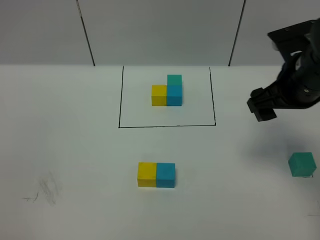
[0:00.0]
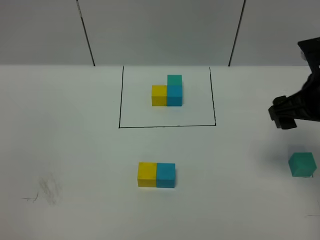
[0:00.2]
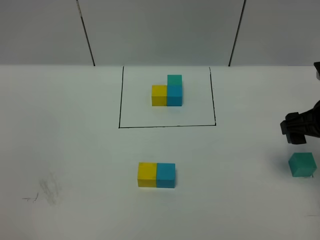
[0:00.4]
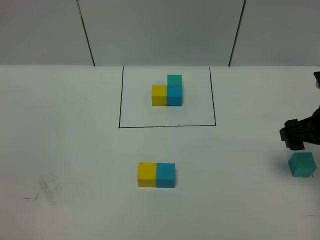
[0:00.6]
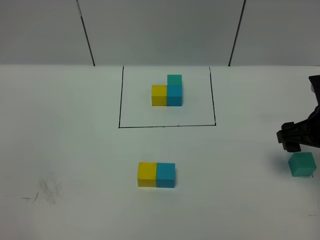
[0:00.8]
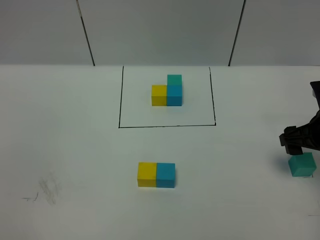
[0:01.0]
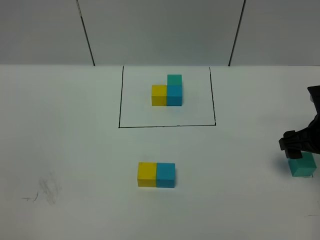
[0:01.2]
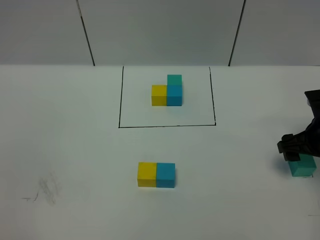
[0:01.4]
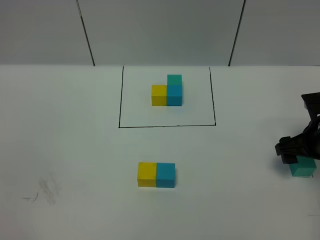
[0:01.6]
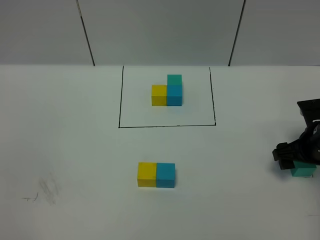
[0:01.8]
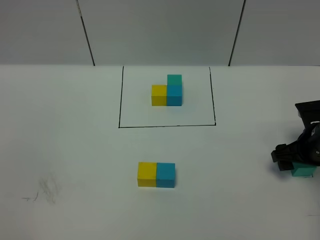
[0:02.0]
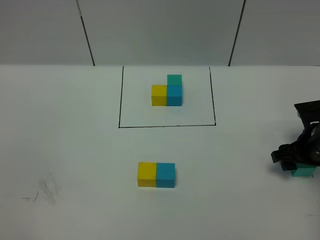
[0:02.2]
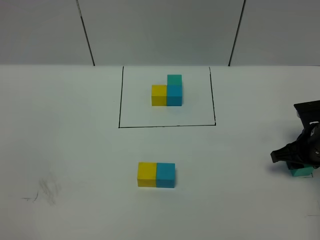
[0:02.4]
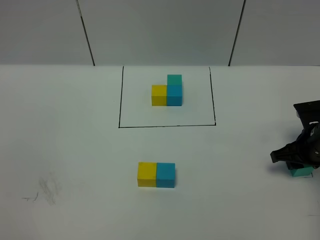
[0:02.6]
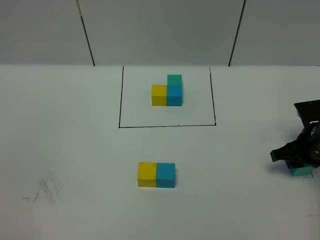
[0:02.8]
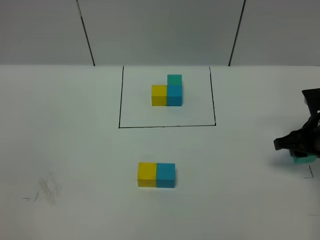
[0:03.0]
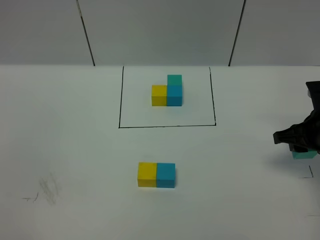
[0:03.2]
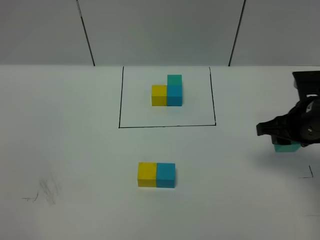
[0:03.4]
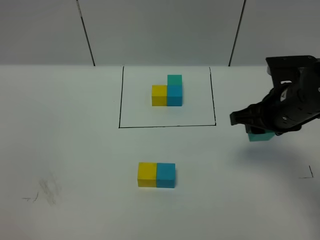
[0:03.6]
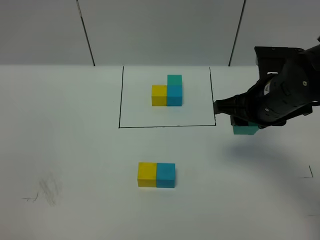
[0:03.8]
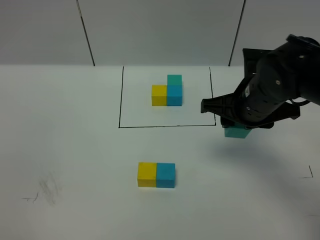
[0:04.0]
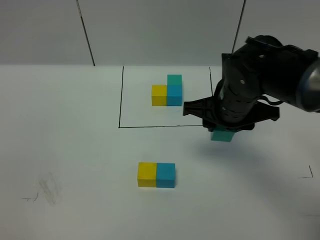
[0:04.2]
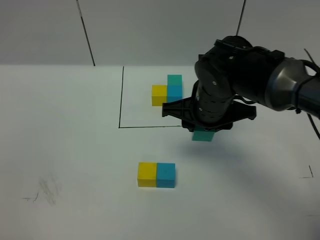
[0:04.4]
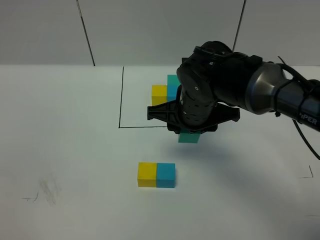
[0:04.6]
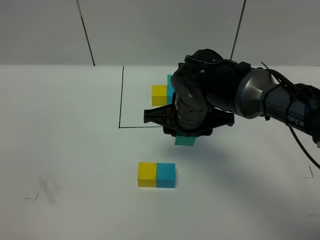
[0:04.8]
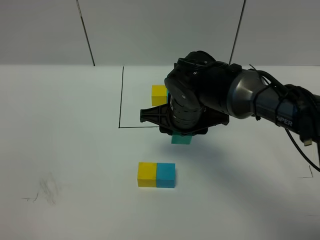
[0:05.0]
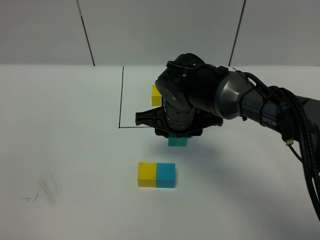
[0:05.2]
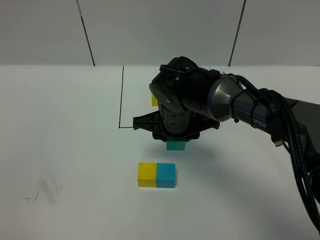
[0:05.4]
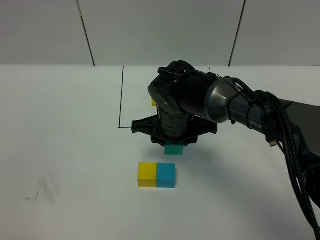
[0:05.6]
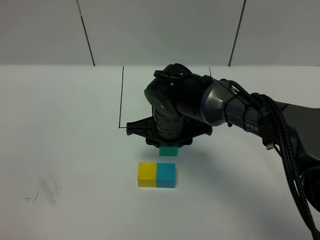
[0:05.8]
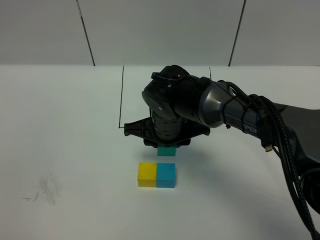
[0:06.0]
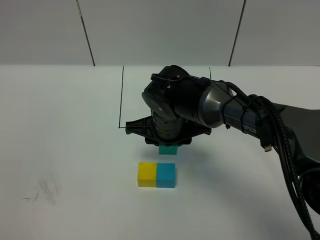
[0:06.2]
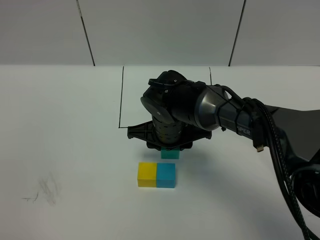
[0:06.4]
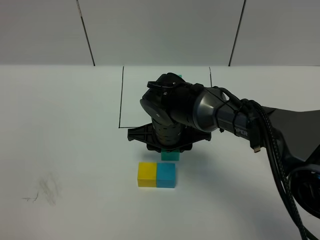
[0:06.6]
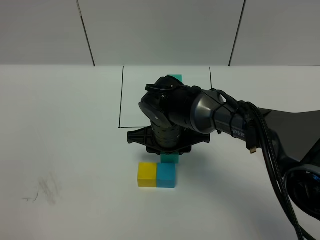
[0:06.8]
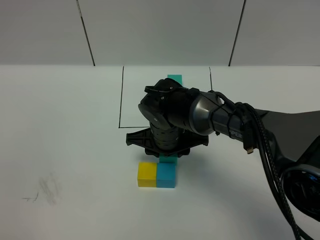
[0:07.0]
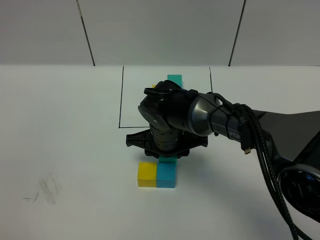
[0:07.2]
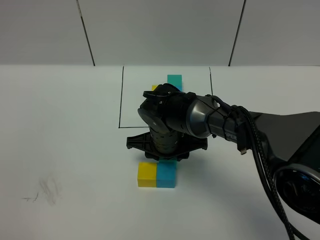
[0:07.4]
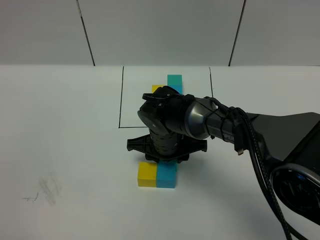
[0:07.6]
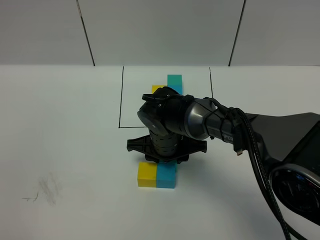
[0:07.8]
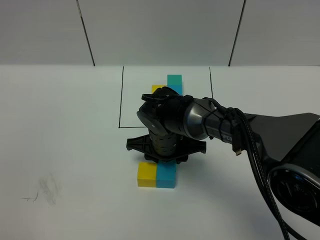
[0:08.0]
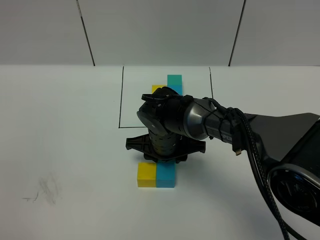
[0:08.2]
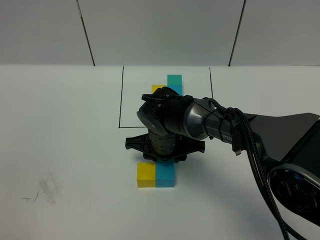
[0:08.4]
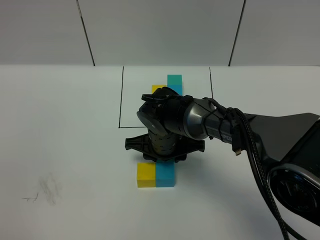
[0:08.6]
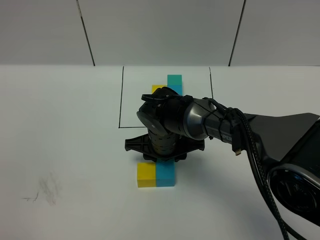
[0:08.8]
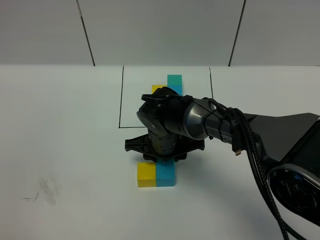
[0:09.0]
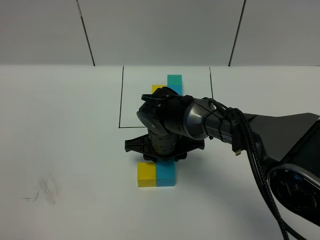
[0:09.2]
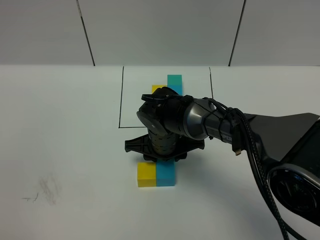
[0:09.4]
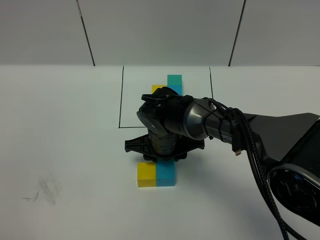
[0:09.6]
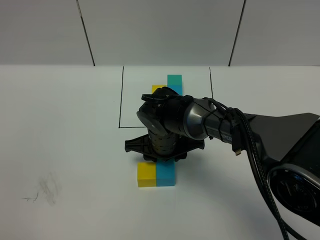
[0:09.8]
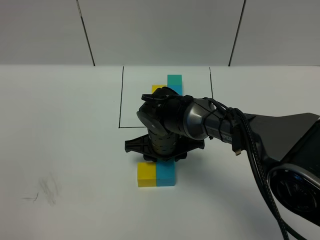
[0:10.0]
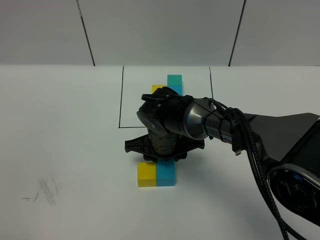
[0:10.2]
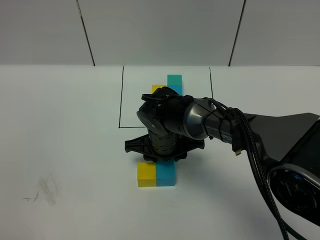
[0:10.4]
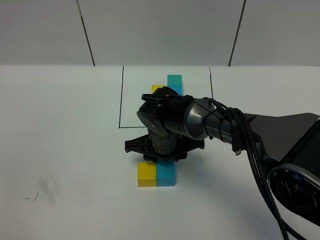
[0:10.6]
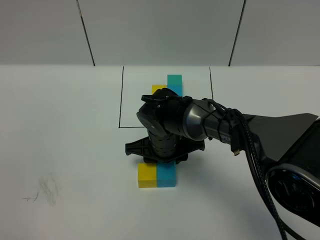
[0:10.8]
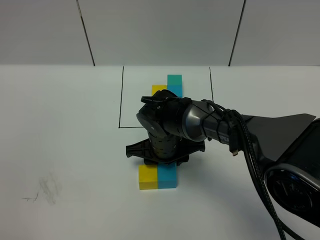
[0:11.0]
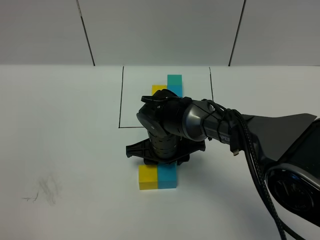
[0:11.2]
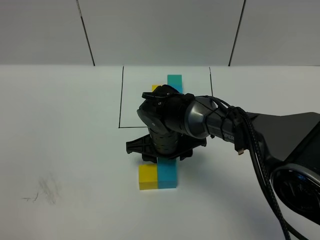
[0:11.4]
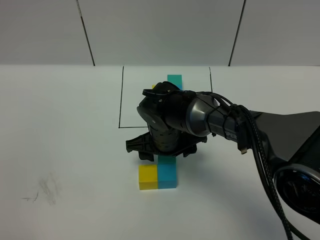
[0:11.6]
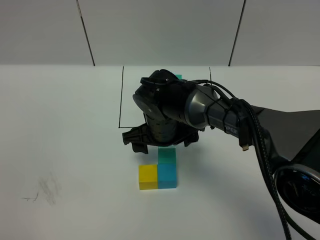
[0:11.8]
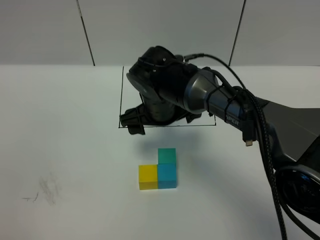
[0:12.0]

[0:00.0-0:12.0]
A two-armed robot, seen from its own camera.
Task of the whole recording: According to the building block template in front, assemble the scattered blocks together.
Step, 0:00.0 to 0:11.6: Put the green cube on the behind of the blue cube.
0:00.0 to 0:01.6: The right gripper heads downward and to the right, covering some 15 cm.
0:01.6 to 0:03.0: The right gripper closes.
0:03.0 to 0:04.4: The right gripper goes about 20 cm to the left.
0:04.4 to 0:06.0: The right gripper shifts about 10 cm to the left and downward.
0:06.0 to 0:07.6: The right gripper travels downward by approximately 5 cm.
0:07.6 to 0:10.4: Both grippers stay put.
0:10.4 to 0:12.0: The right gripper shifts some 10 cm upward, and opens up.

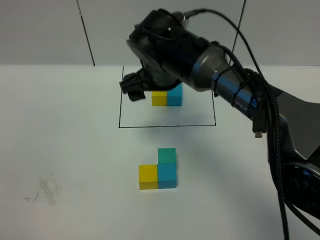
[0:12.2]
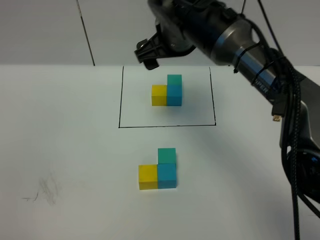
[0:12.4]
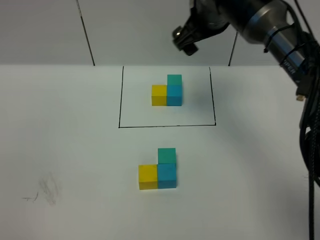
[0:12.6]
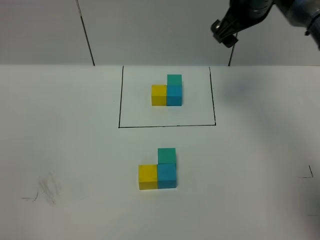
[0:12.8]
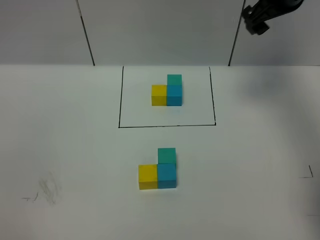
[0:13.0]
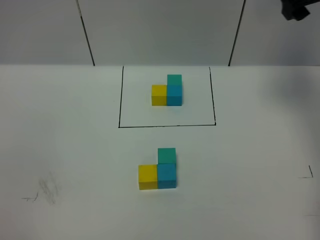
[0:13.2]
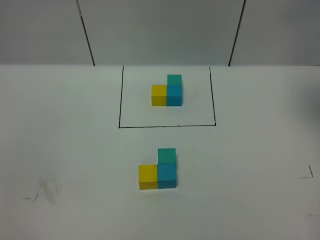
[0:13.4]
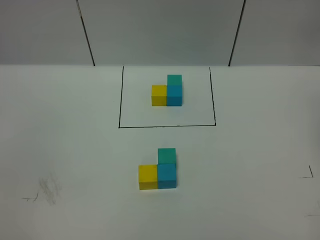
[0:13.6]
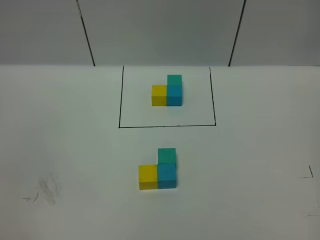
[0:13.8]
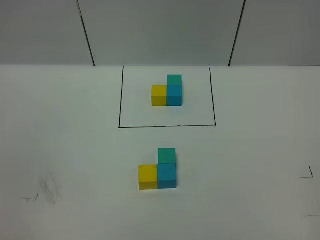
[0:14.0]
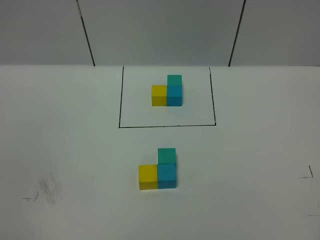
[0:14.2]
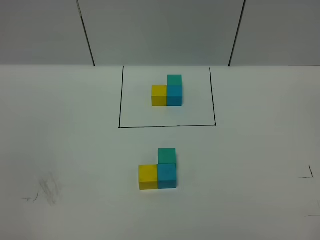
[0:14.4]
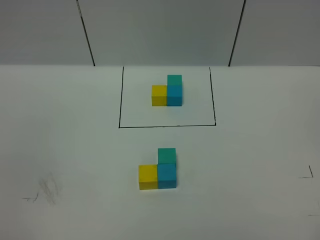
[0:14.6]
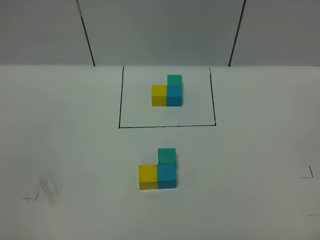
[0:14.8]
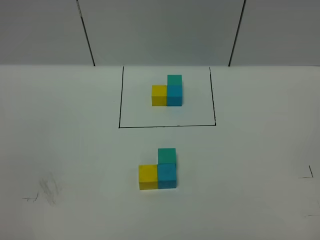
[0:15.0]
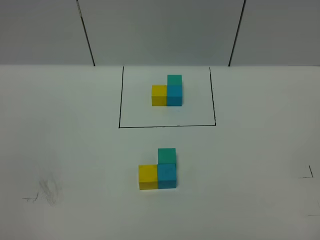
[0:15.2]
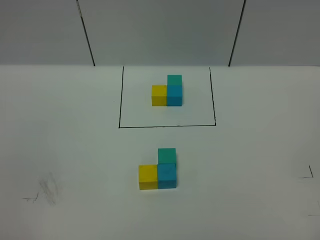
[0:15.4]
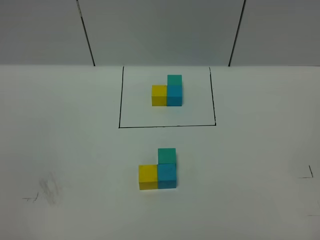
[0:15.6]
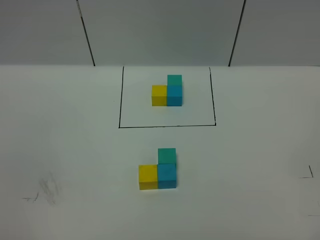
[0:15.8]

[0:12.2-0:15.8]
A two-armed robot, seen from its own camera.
Task of the whole recording: According to the building block template in front, assemble the scattered blocks together.
0:12.2 to 0:14.0: The right gripper moves to the right, backward and upward, some 50 cm.

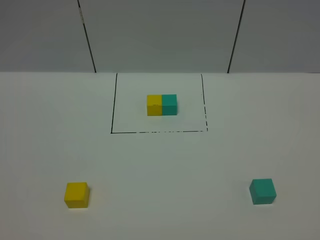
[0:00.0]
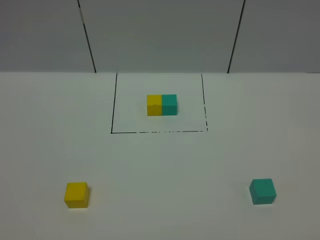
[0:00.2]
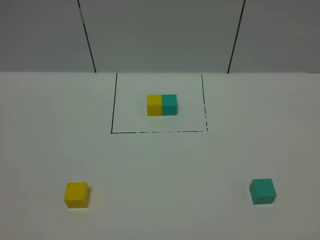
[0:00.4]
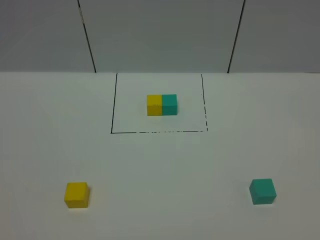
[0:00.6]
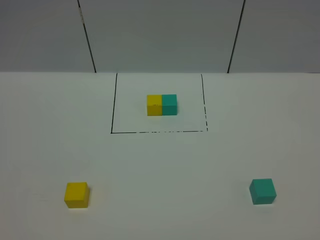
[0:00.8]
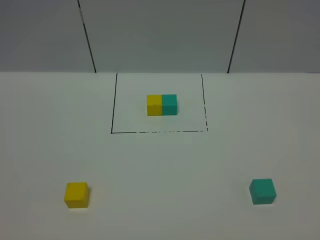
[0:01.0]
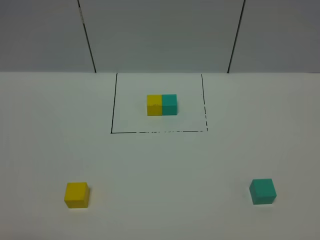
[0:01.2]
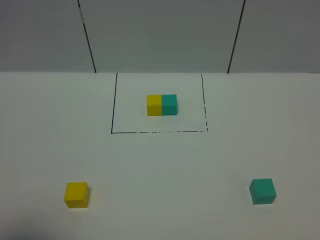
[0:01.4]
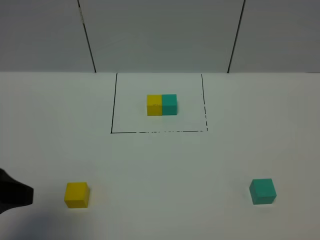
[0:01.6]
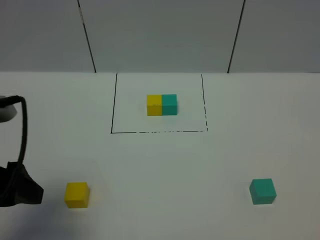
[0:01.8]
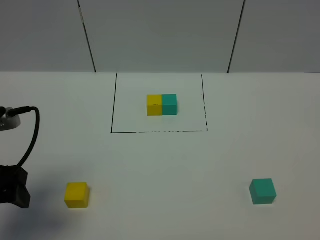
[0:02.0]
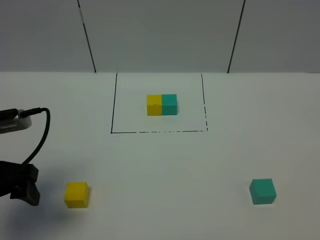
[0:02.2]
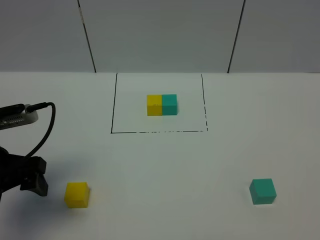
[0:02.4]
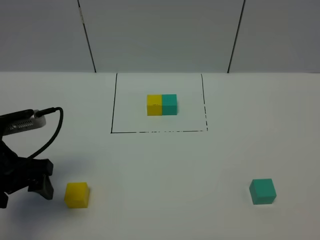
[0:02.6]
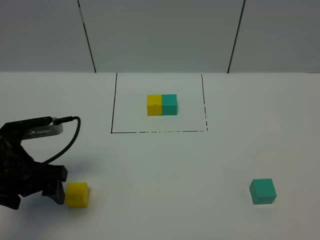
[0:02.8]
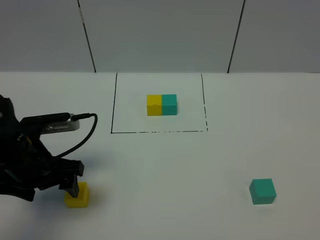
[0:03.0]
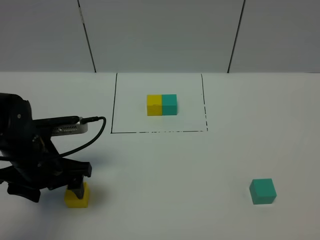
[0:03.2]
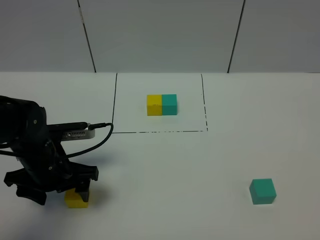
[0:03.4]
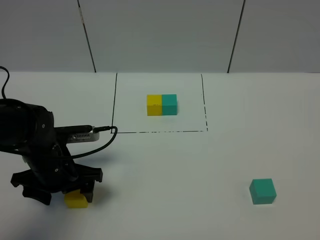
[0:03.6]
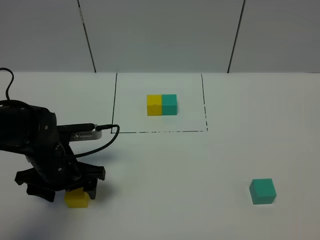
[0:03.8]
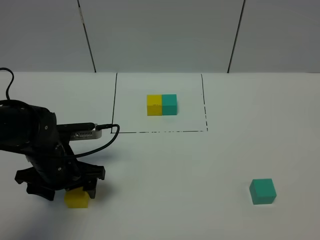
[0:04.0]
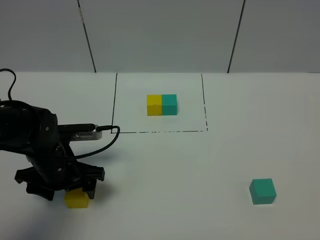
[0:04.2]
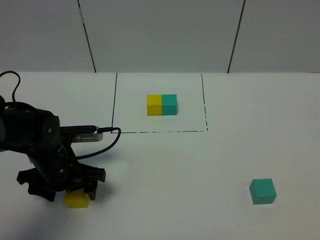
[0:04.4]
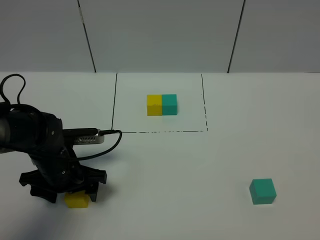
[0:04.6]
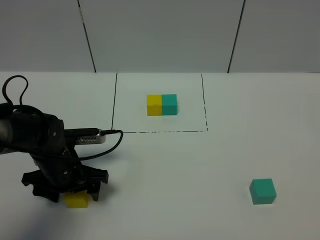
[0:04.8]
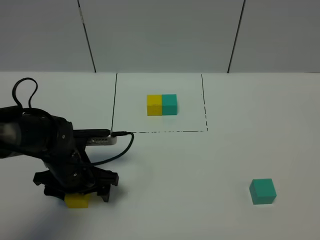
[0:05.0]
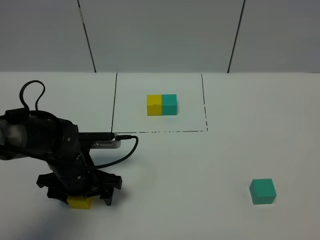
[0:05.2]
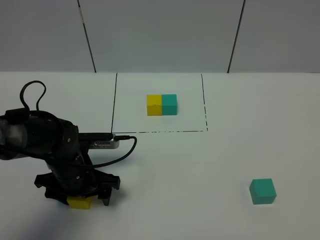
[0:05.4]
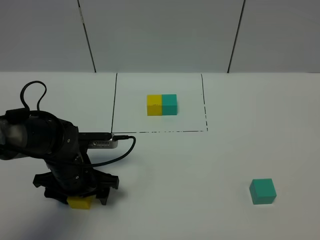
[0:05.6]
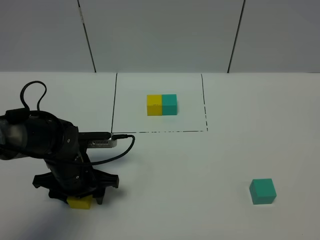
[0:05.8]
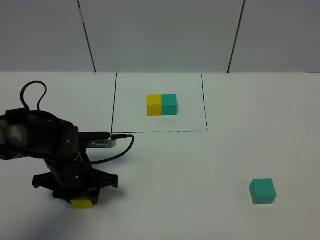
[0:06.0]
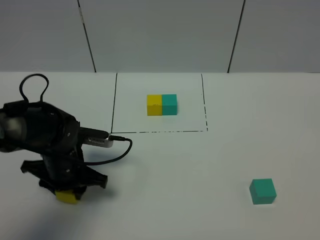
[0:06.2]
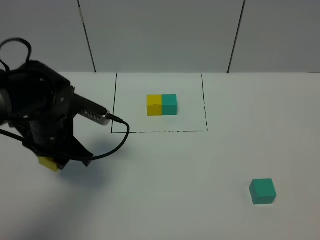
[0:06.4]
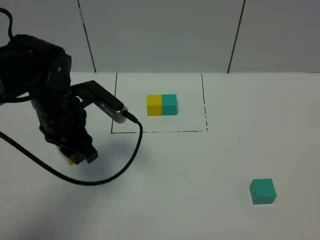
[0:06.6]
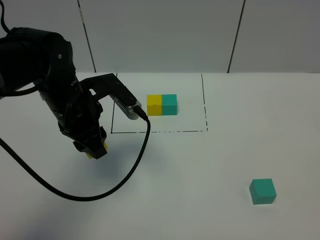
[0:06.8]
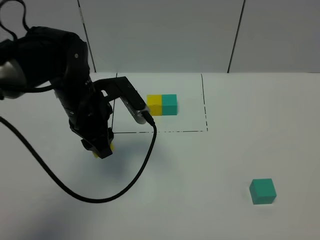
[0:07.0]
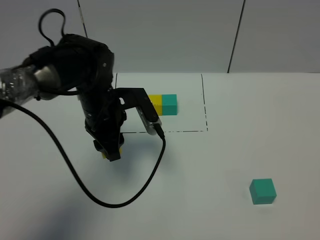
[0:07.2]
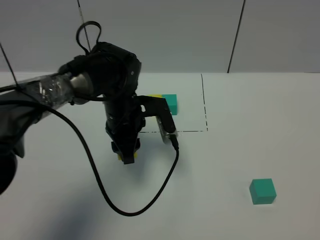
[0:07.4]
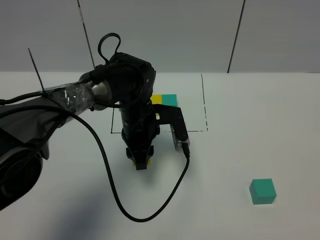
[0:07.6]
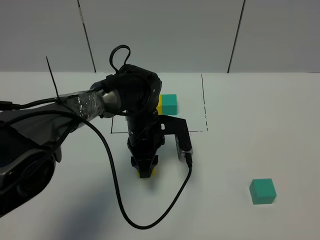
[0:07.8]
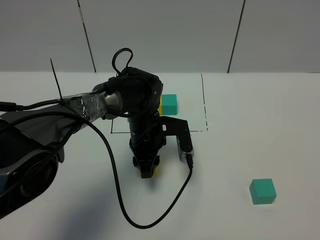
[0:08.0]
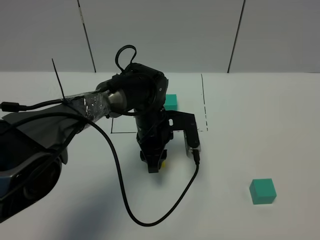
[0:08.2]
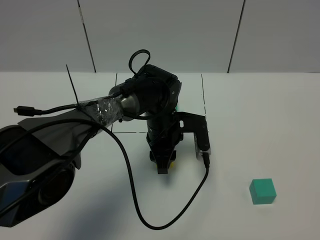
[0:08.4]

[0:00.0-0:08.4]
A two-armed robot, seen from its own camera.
Task of the whole recording: According to the building block template in front, assemble the scattered blocks together.
0:00.0 to 0:01.4: The left gripper travels forward by roughly 10 cm.
0:01.4 to 0:02.8: The left gripper shifts approximately 20 cm forward and downward.
0:02.8 to 0:04.2: The left gripper is displaced downward by approximately 5 cm.
0:04.2 to 0:05.6: The grippers make only small movements.
0:05.6 to 0:07.0: The left gripper heads upward and forward, covering about 15 cm, and closes its fingers.
0:07.0 to 0:08.4: The left gripper moves to the right and downward, roughly 15 cm.
